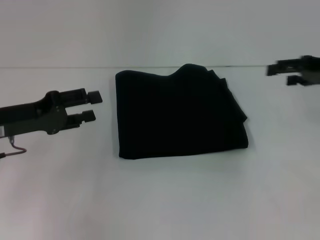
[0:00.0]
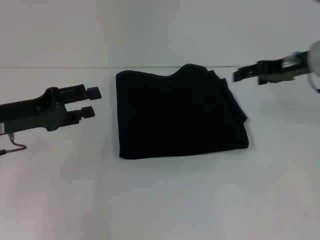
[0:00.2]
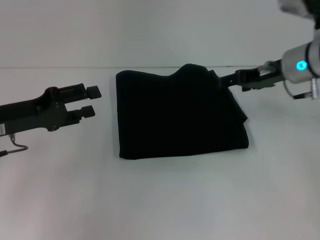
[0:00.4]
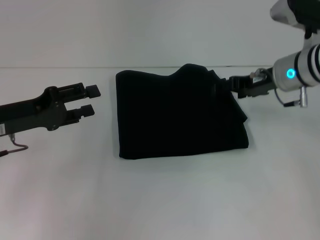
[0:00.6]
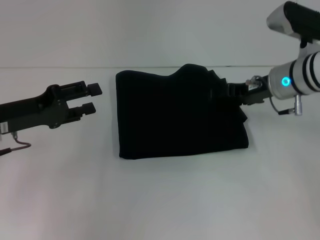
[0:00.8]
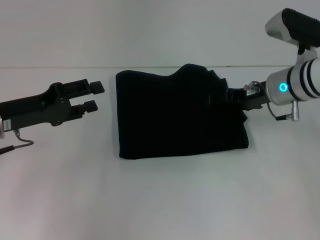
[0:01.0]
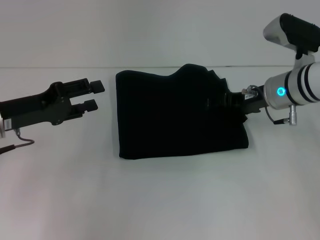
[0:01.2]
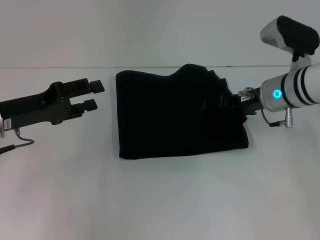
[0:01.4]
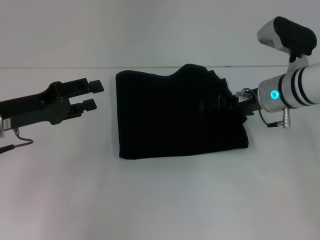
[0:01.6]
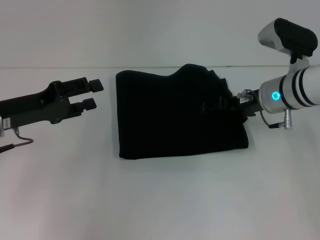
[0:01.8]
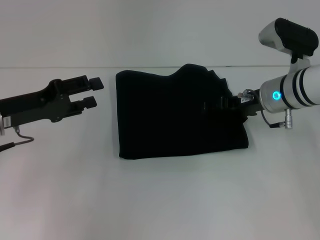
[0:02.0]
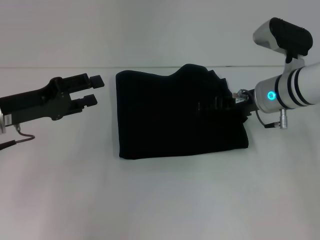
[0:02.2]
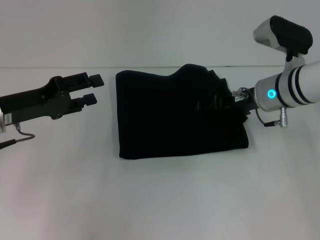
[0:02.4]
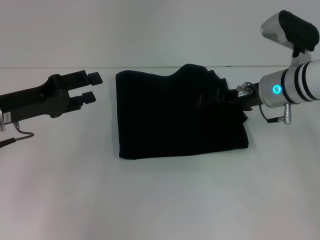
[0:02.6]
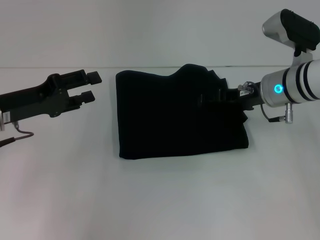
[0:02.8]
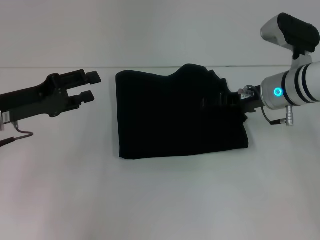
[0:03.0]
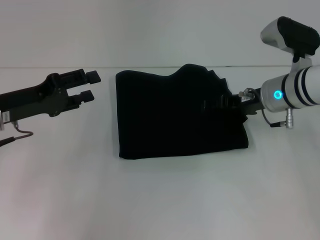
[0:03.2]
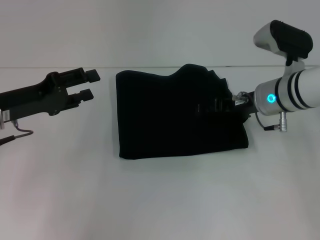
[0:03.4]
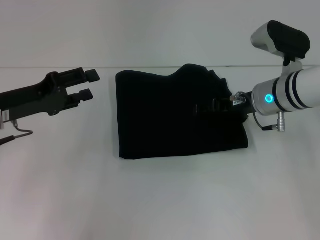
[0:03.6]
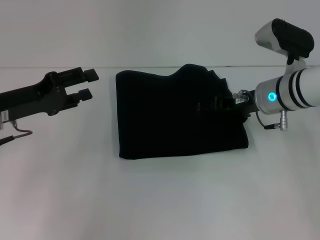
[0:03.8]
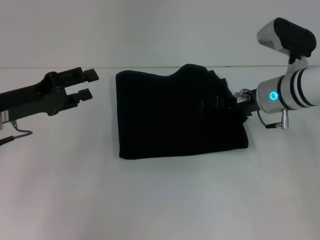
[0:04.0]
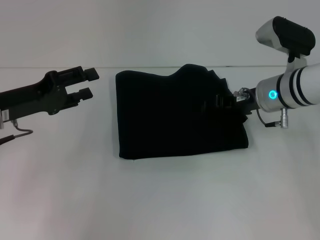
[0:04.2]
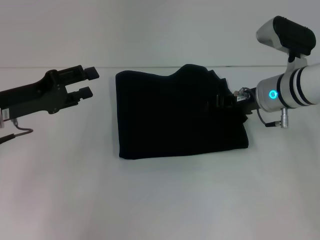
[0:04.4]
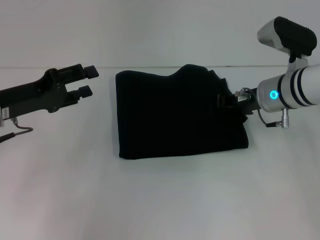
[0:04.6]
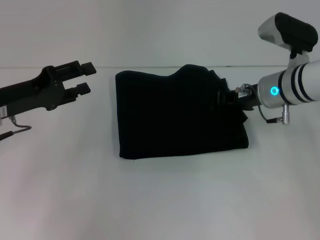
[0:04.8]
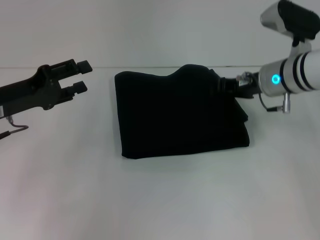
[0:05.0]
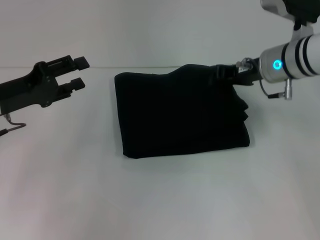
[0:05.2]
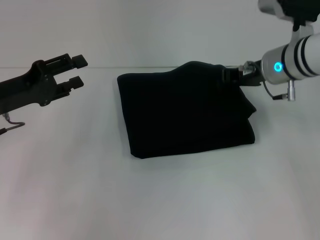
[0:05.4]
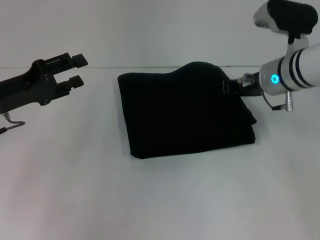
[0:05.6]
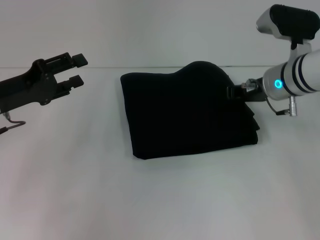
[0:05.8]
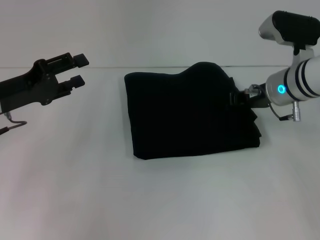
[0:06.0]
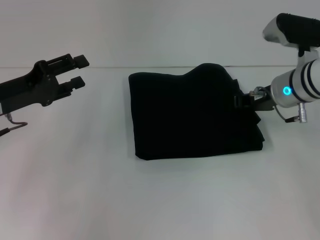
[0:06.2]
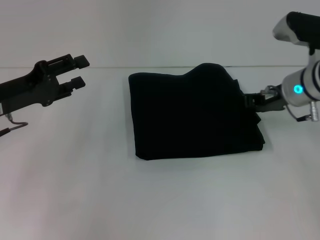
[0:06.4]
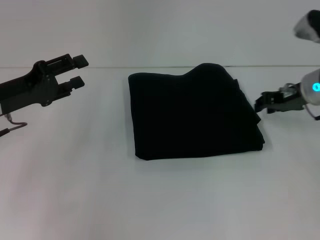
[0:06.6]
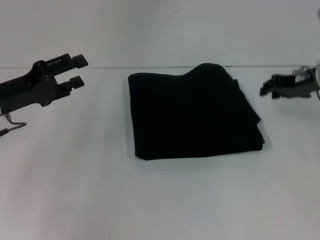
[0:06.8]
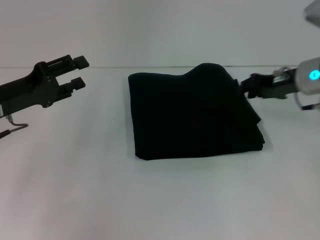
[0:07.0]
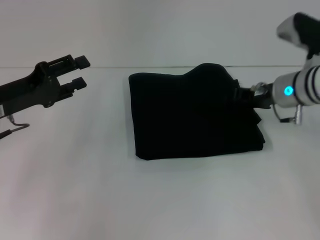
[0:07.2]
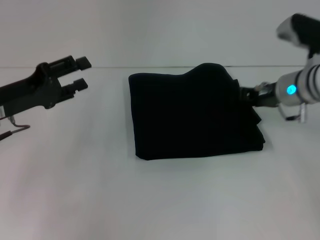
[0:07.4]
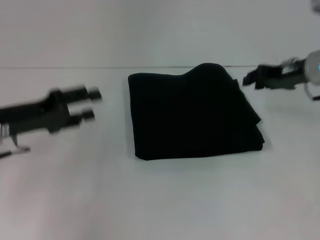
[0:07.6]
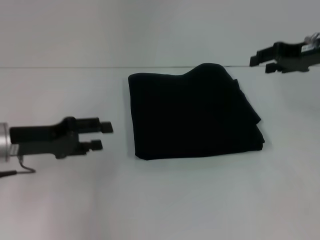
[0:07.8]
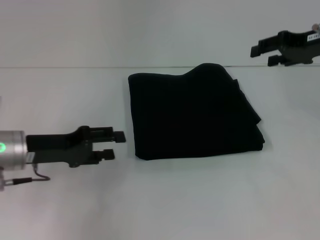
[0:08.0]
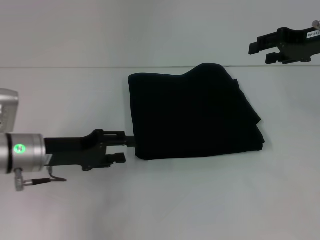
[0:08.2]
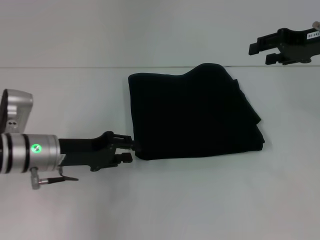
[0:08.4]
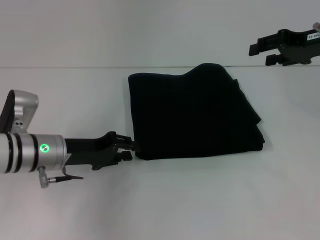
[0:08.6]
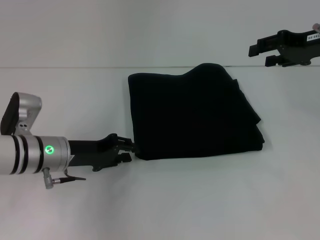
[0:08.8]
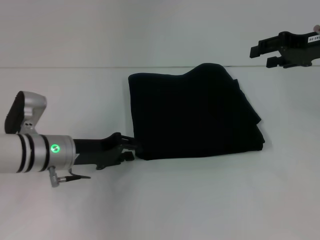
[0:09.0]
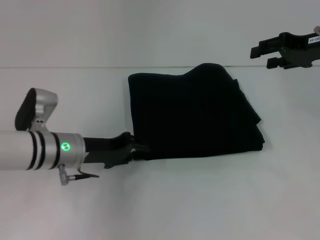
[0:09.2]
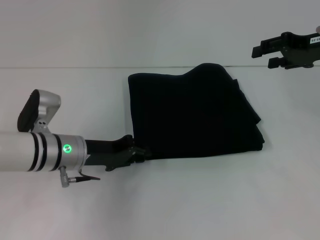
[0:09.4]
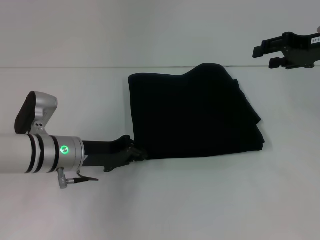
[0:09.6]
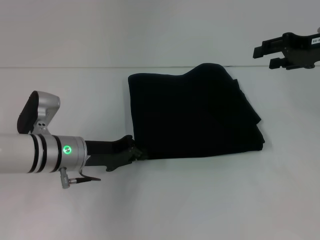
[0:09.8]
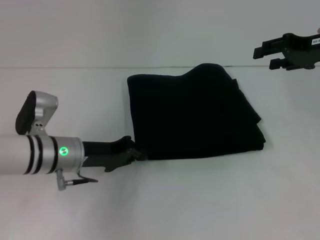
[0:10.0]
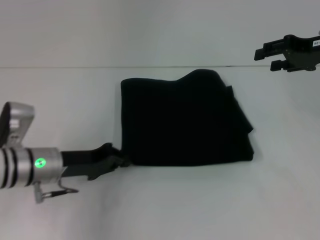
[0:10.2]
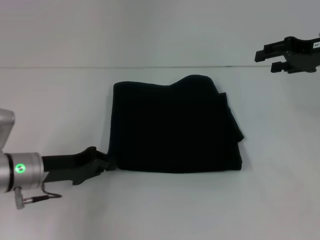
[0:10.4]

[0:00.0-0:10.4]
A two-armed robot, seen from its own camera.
0:00.0 to 0:01.4: The right gripper moves to the left and downward, approximately 15 cm.
0:01.4 to 0:03.0: Both grippers stay about where they are.
0:03.0 to 0:04.4: The right gripper closes up.
0:04.4 to 0:06.0: The right gripper closes.
0:07.4 to 0:09.0: The left gripper travels to the right and downward by about 10 cm. Meanwhile the right gripper is displaced upward and to the right by approximately 10 cm.
0:09.0 to 0:10.4: The left gripper moves about 5 cm, and closes its fingers.

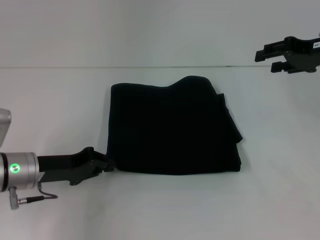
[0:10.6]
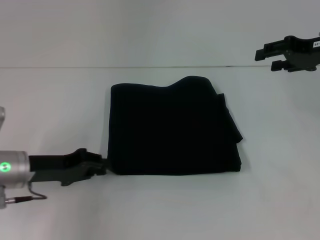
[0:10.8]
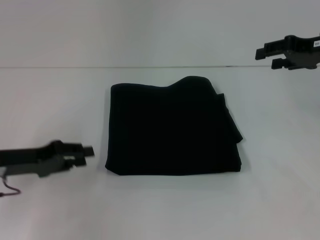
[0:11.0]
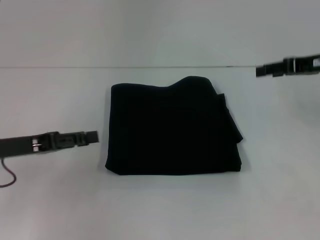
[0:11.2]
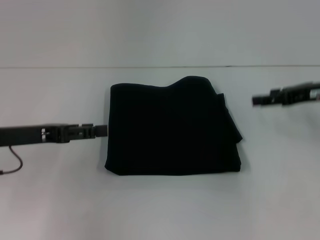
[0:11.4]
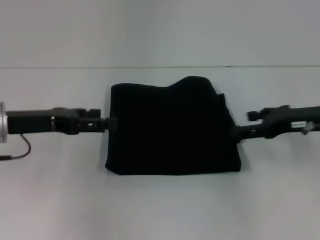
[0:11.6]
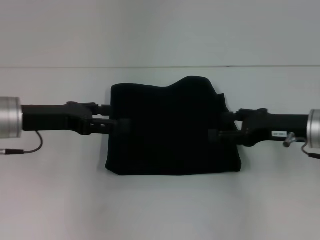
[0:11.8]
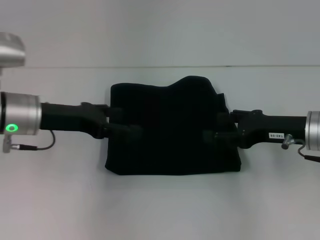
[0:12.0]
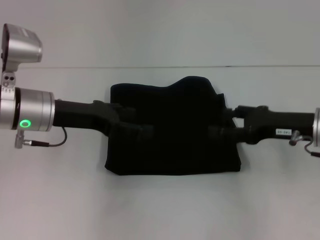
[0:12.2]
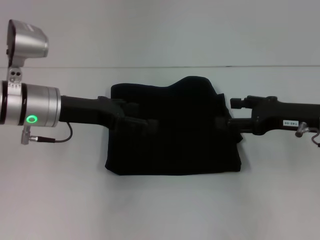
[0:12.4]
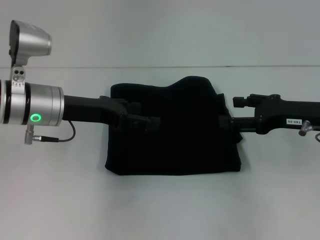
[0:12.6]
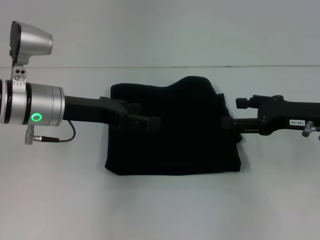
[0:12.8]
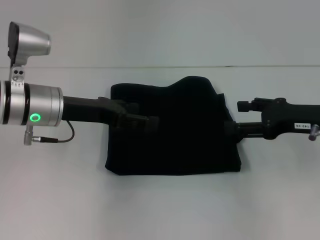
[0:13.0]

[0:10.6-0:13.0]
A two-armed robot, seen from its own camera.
0:10.6 to 0:11.8: The right gripper shifts roughly 15 cm downward and backward, while the left gripper is displaced upward by some 10 cm, and opens.
0:11.8 to 0:13.0: The left gripper ends up some 5 cm from where it was.

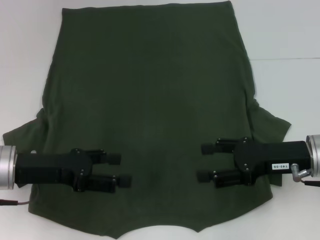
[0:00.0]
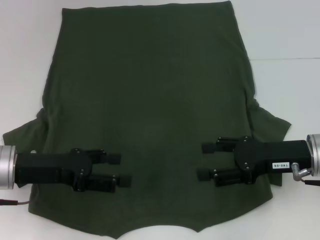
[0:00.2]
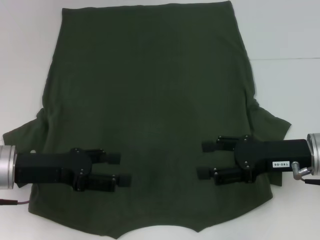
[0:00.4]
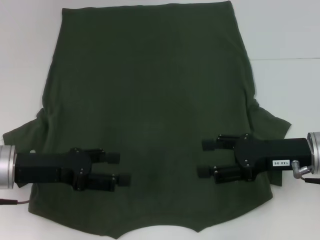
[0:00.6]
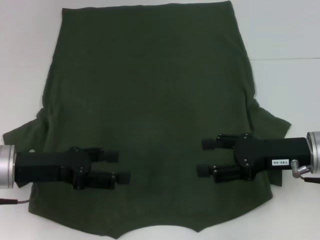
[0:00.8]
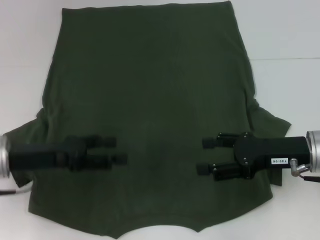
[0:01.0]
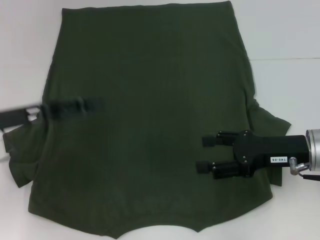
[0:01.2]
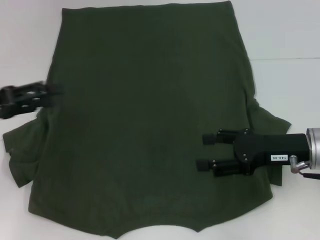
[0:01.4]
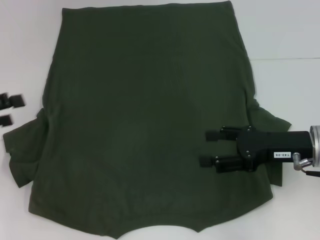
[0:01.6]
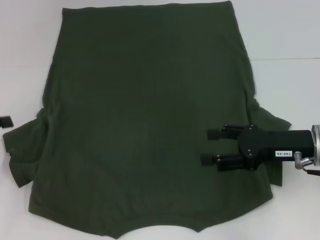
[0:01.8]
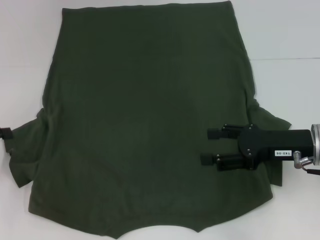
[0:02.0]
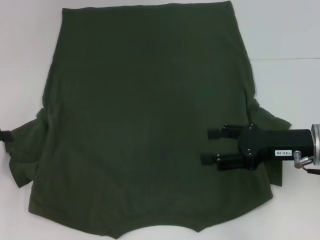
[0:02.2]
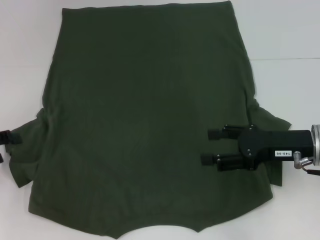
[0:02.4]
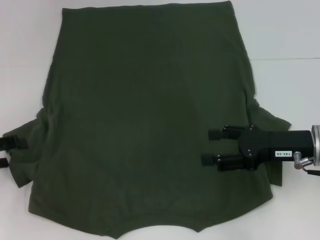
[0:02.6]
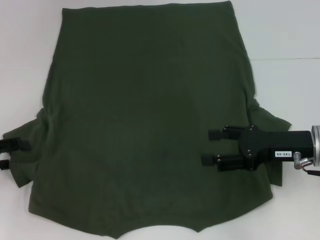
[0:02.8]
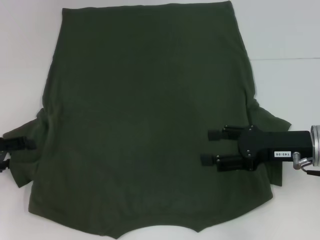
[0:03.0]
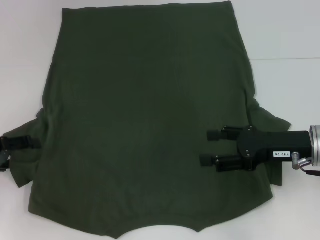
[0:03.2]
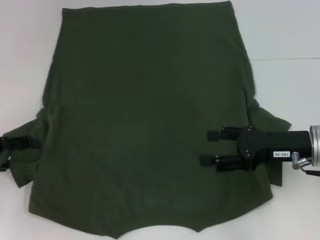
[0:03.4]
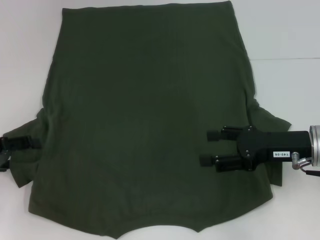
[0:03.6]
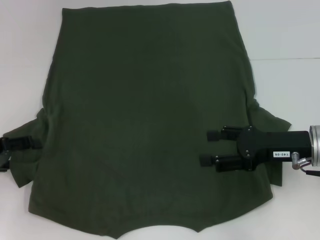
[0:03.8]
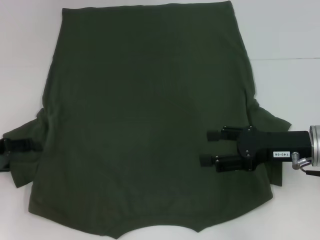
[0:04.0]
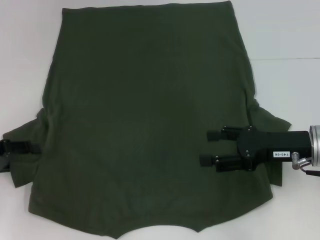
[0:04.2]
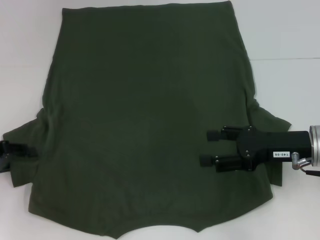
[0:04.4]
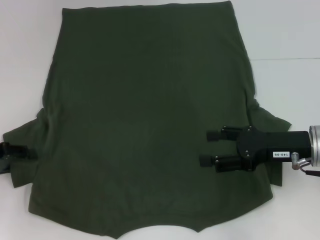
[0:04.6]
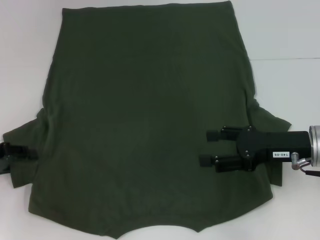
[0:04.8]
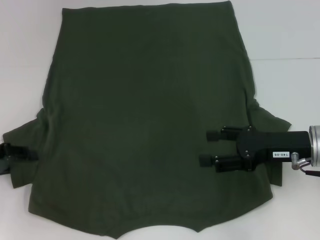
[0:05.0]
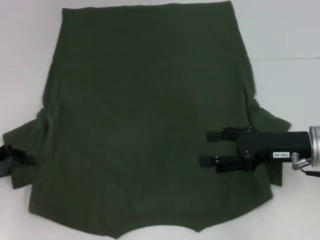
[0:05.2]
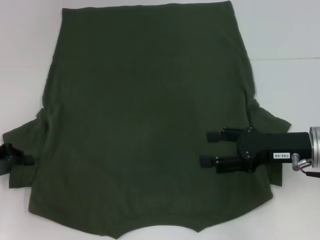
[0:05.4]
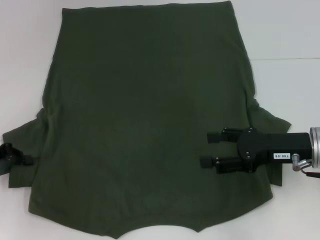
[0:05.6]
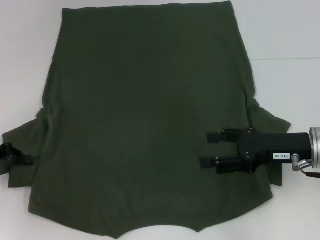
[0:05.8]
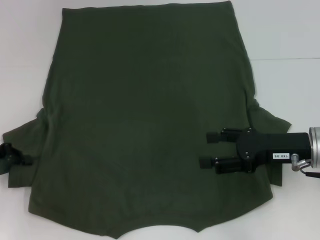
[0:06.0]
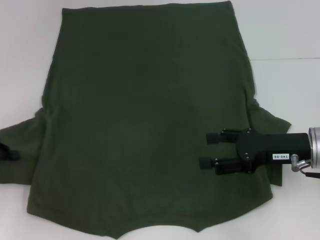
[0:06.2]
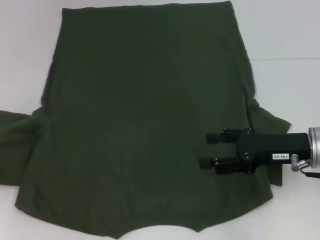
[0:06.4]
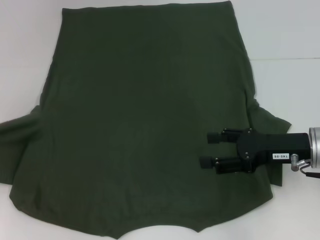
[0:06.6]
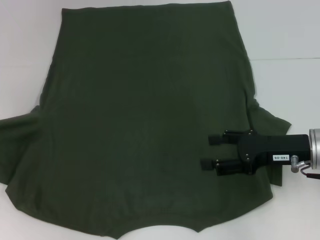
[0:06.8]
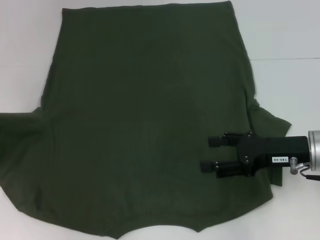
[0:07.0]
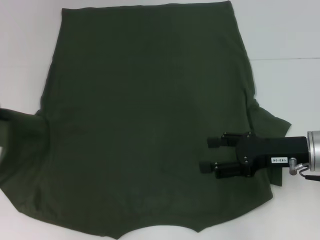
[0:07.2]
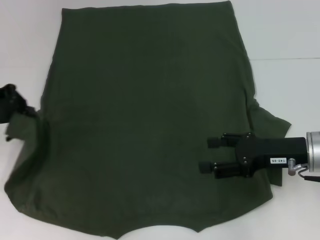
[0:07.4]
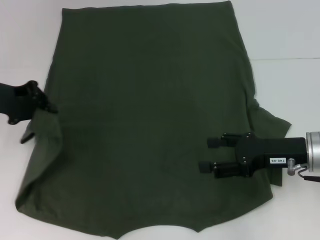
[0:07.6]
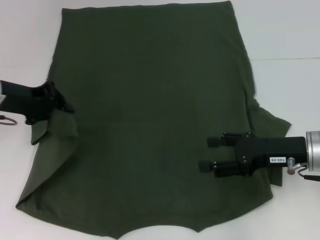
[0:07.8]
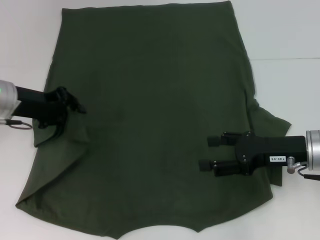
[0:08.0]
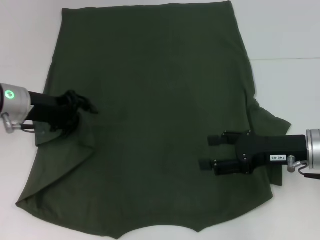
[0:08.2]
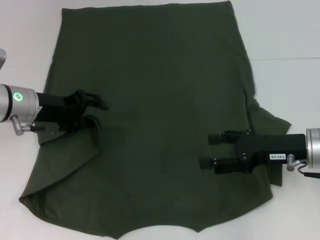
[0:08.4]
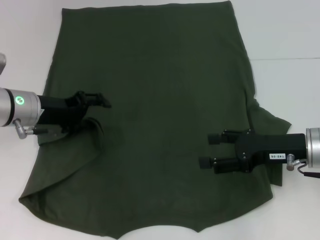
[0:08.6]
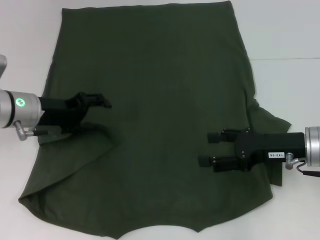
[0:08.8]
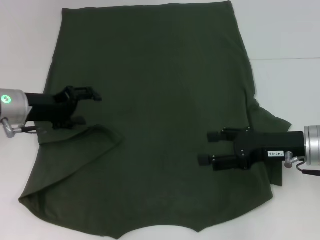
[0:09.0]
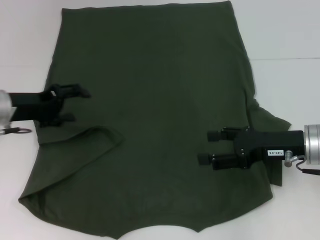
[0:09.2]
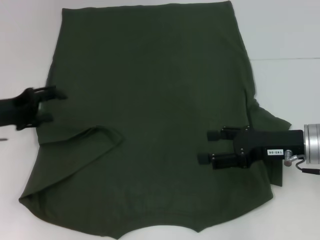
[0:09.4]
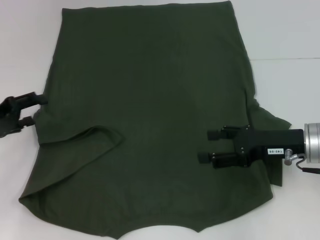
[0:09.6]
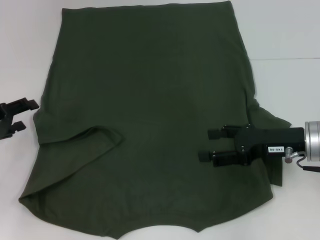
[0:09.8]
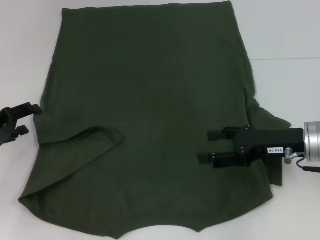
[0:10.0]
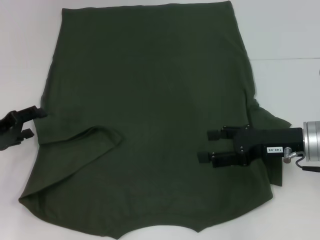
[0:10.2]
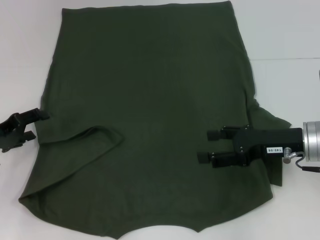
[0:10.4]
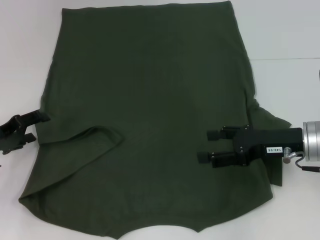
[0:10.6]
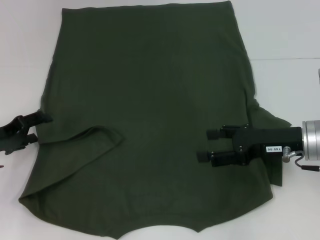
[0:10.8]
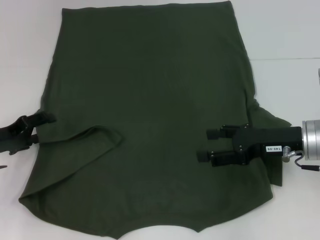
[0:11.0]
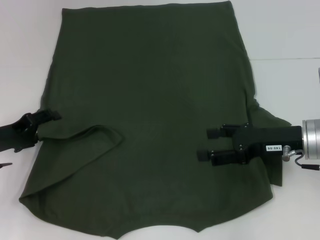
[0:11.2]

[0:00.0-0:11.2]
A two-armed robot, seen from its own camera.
0:00.0 to 0:01.6: The left gripper travels to the left by roughly 15 cm.
0:01.6 to 0:03.2: The left gripper goes some 5 cm downward.
0:03.2 to 0:04.8: The left gripper closes up.
0:04.8 to 0:06.4: The left gripper changes place by approximately 5 cm, and closes.
0:06.4 to 0:08.0: The left gripper moves to the right and forward, about 15 cm.
0:08.0 to 0:09.6: The left gripper moves to the left and backward, roughly 10 cm, and opens its fingers.
0:09.6 to 0:11.2: The grippers make only small movements.
